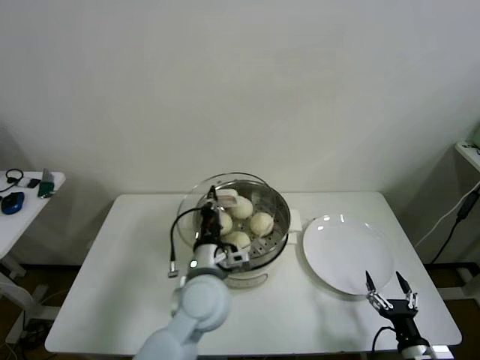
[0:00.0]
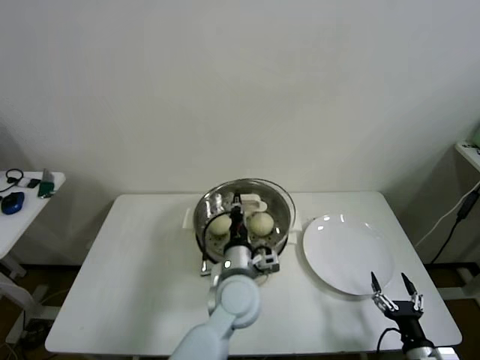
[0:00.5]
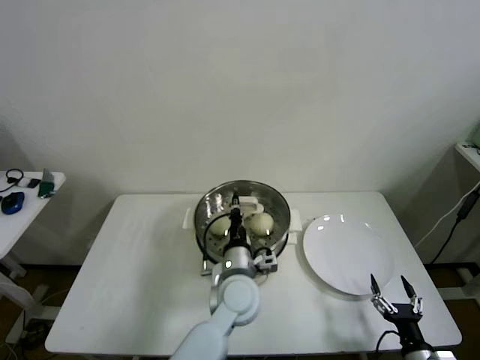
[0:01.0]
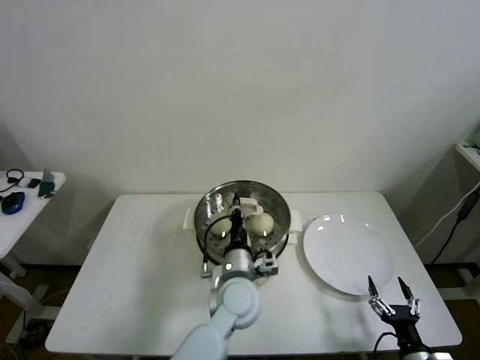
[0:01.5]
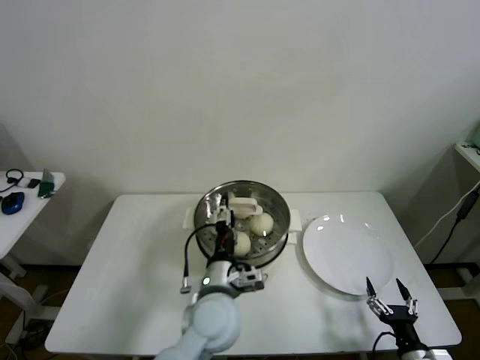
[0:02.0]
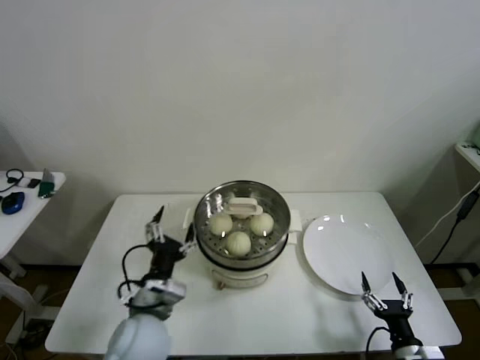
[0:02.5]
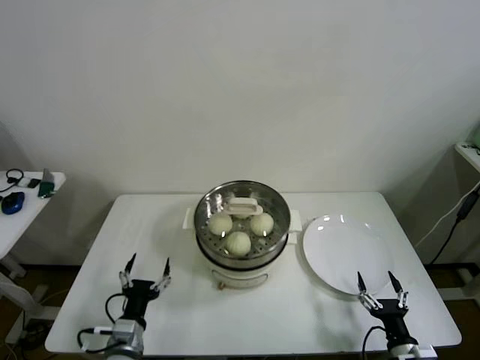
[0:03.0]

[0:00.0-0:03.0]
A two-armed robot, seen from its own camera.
0:00.0 to 0:01.5: The left gripper moves to the right and downward, about 10 cm.
0:01.5 to 0:03.0: The left gripper is displaced to the left and backward by approximately 25 cm, and opens up.
